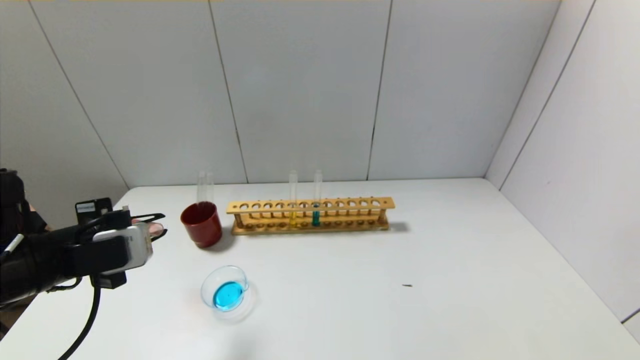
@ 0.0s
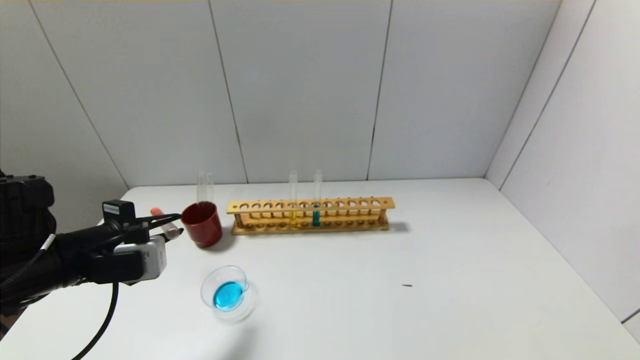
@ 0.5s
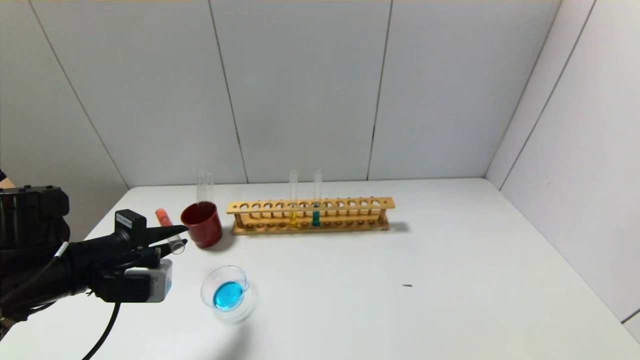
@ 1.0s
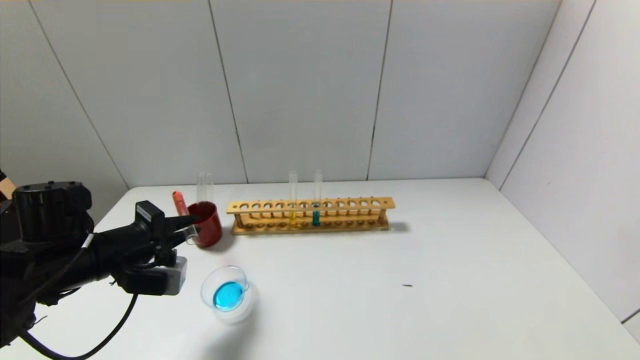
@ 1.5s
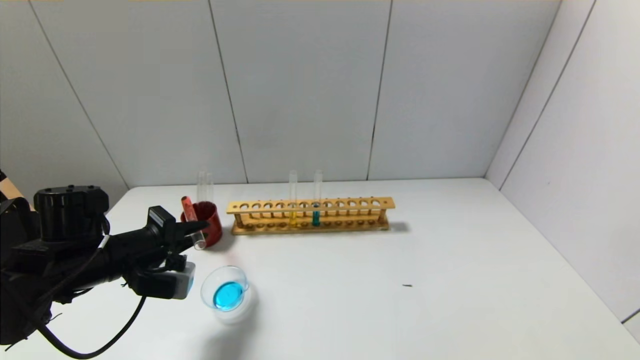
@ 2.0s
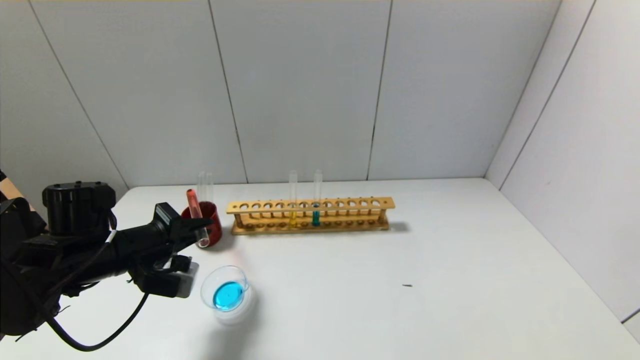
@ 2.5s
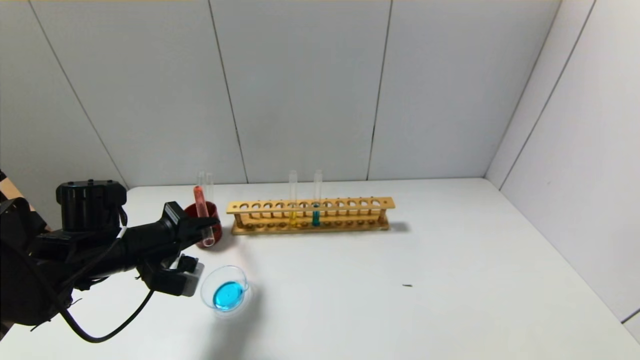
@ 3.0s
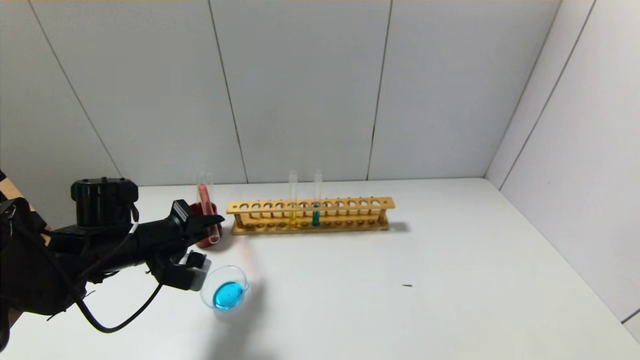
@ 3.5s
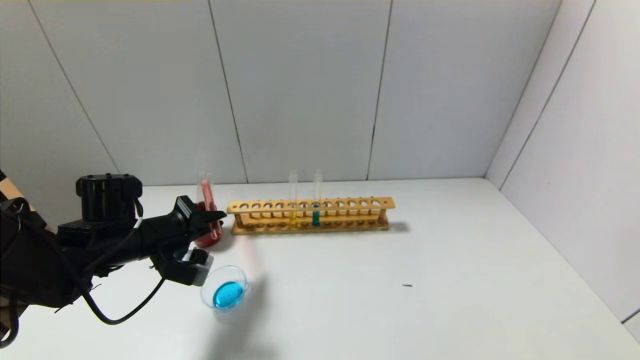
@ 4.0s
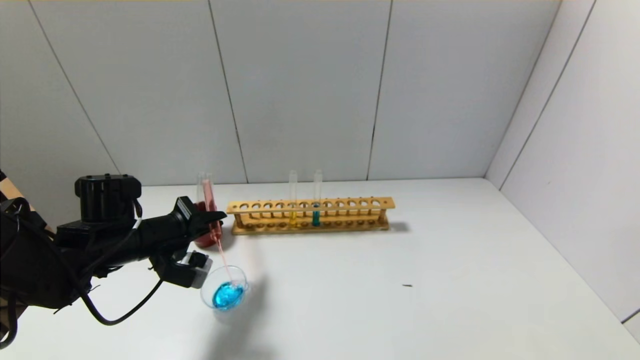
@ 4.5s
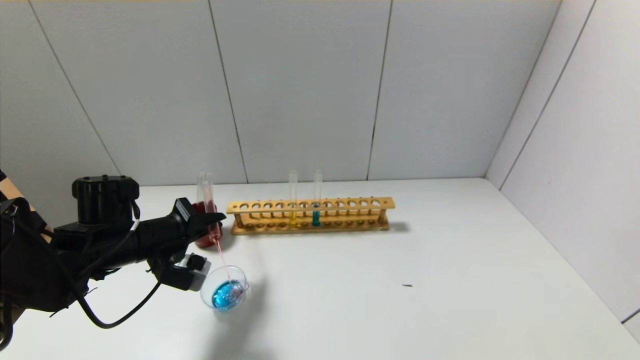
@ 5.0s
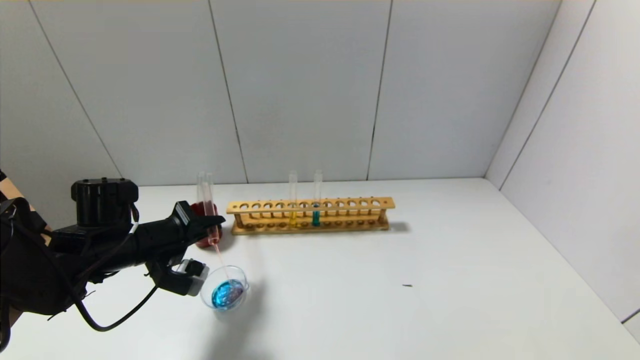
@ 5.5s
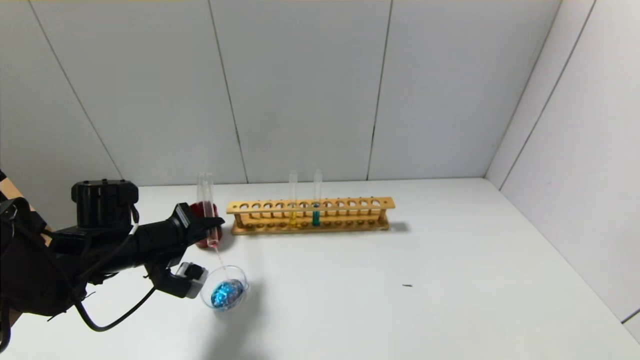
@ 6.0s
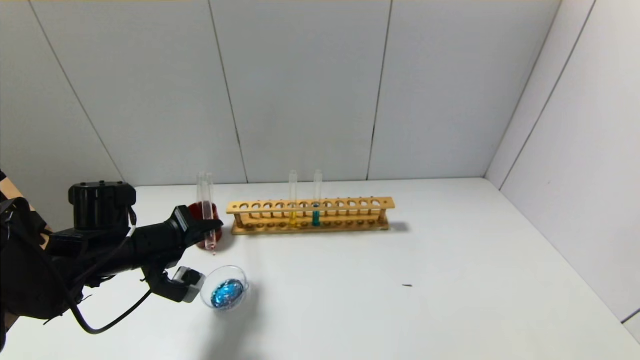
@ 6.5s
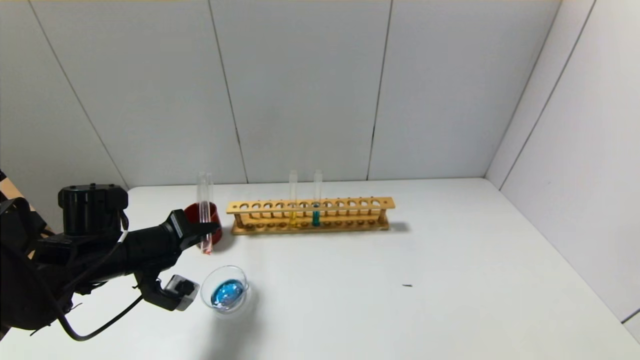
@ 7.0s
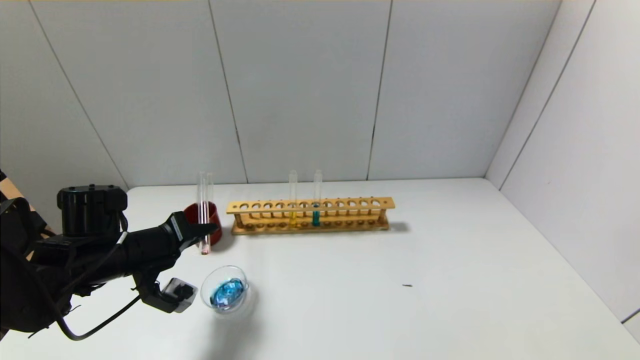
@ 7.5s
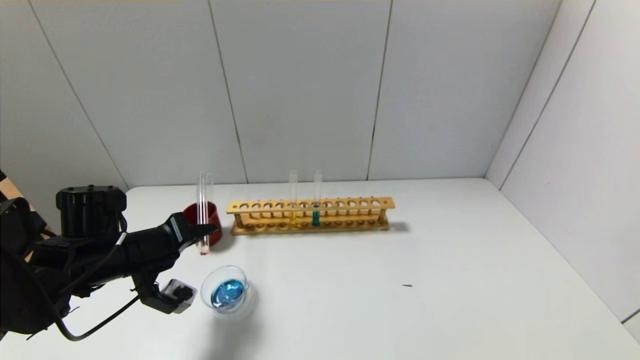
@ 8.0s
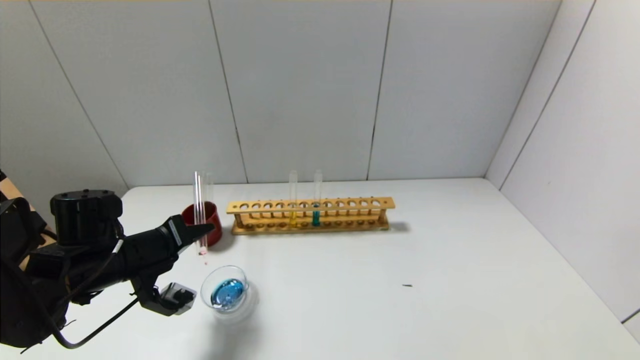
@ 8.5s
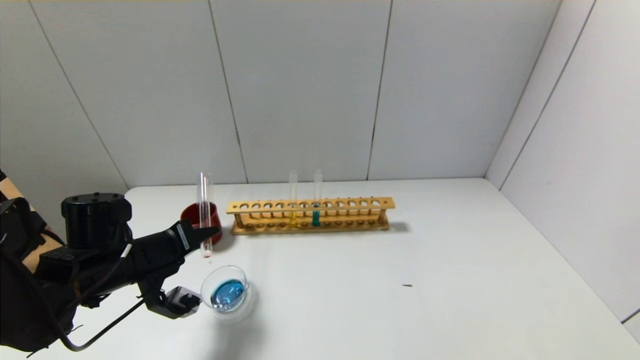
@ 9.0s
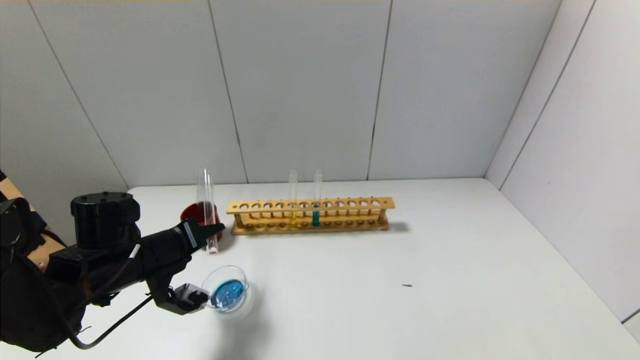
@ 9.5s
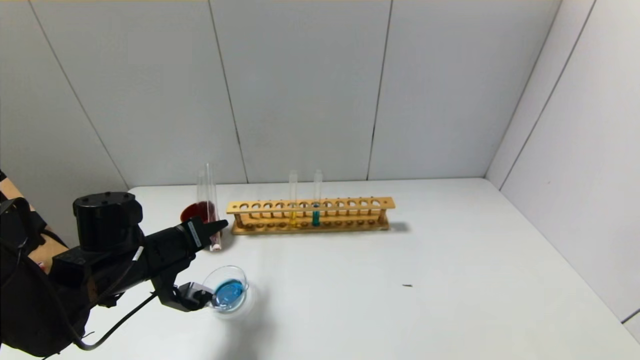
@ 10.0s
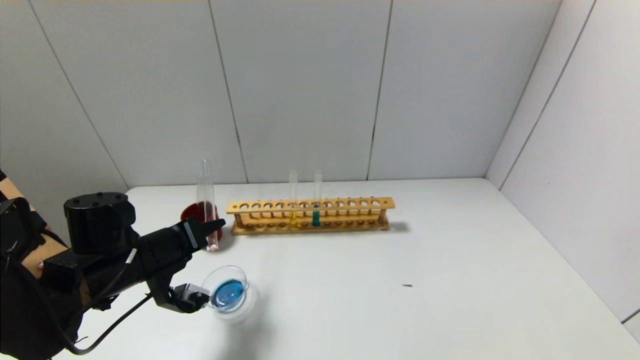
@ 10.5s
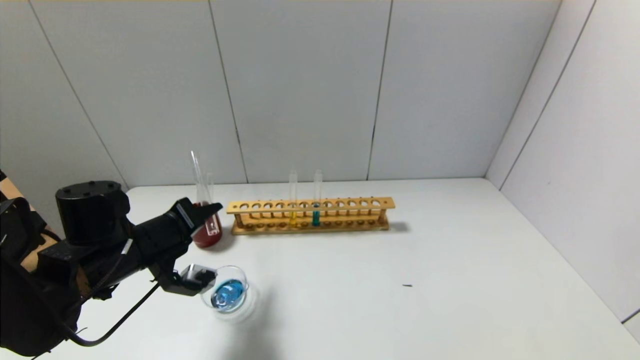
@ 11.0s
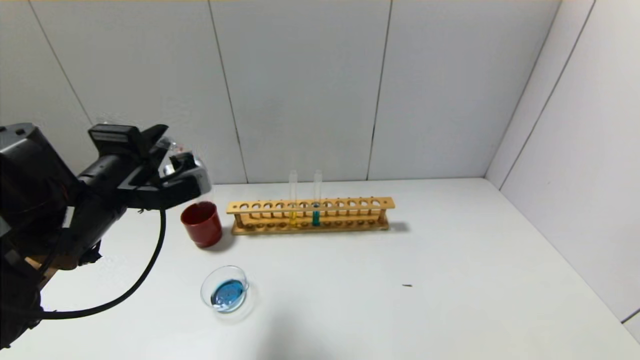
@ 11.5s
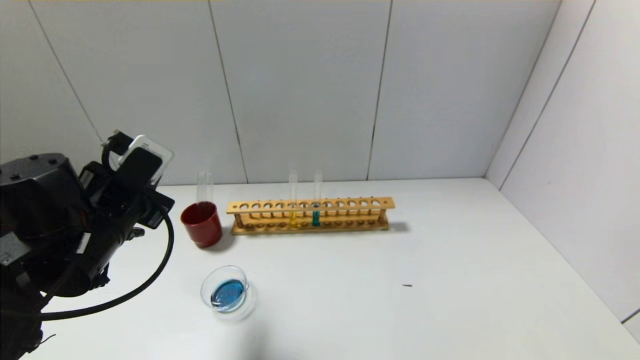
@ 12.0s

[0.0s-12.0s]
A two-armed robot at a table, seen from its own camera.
Step, 0.0s to 11.0s: Pour the red reagent into the graduated cylinder with the left gripper.
0.0s to 2.0s: The left gripper heads forward and downward, covering some 10 cm.
2.0s to 6.0s: The grippers move only a little.
6.0s to 8.0s: There are only small adjustments of the grippers.
8.0s to 10.0s: The grippers make only small movements.
10.0s to 12.0s: The left gripper moves upward, some 10 cm.

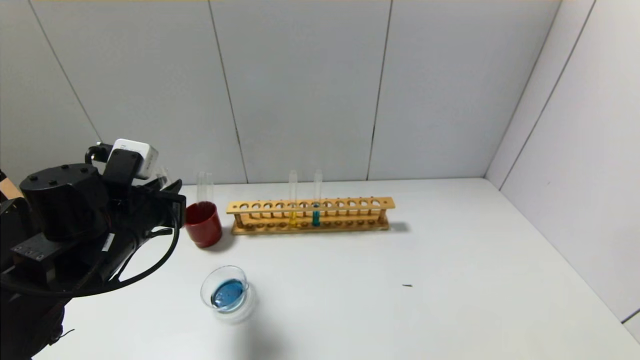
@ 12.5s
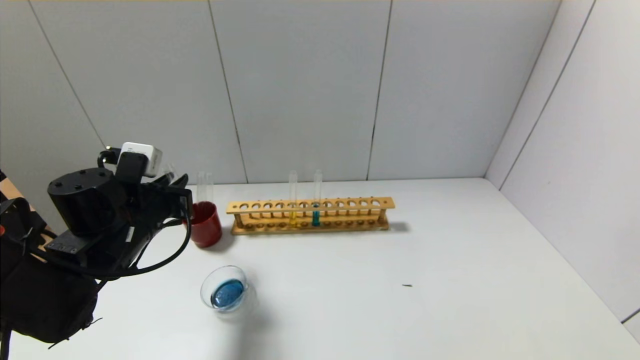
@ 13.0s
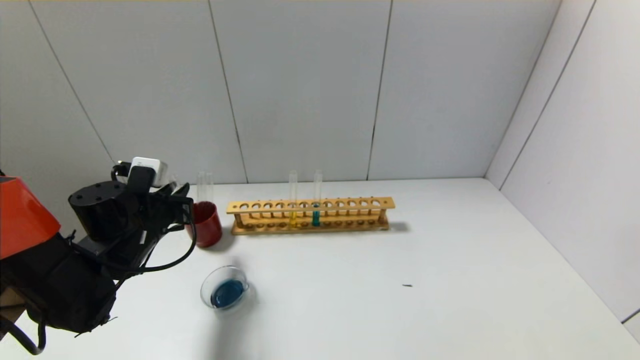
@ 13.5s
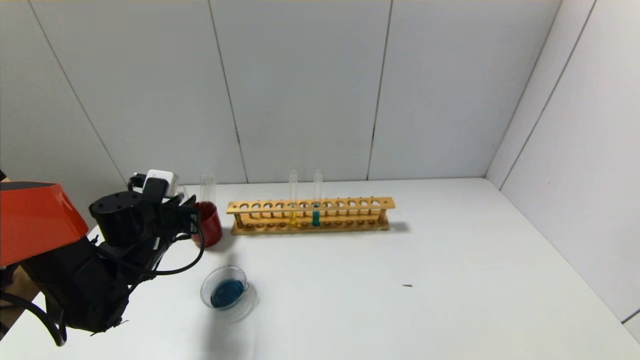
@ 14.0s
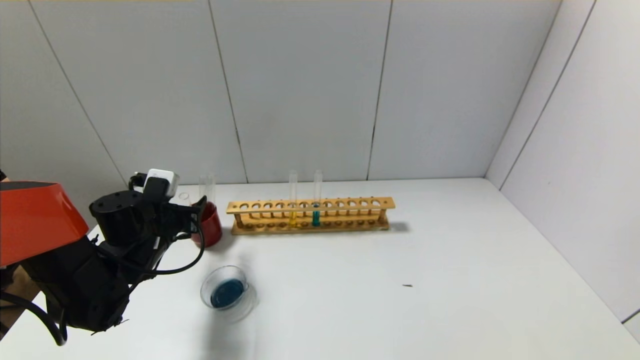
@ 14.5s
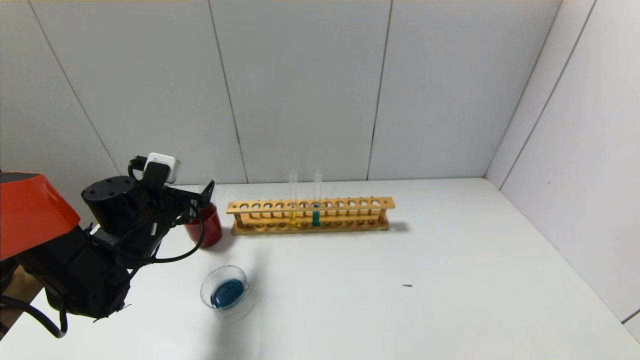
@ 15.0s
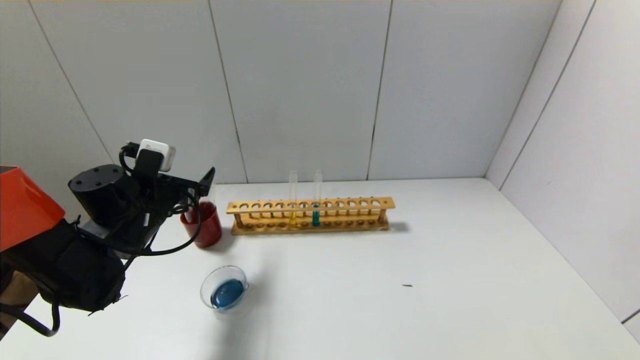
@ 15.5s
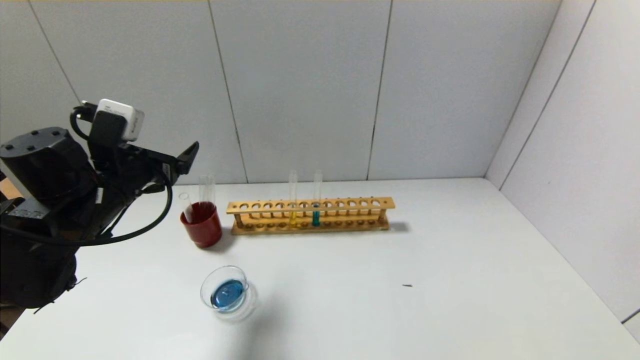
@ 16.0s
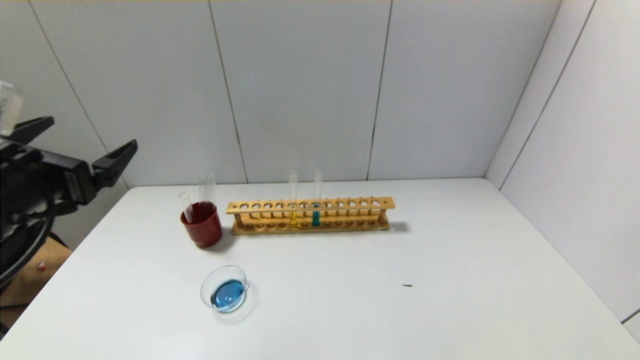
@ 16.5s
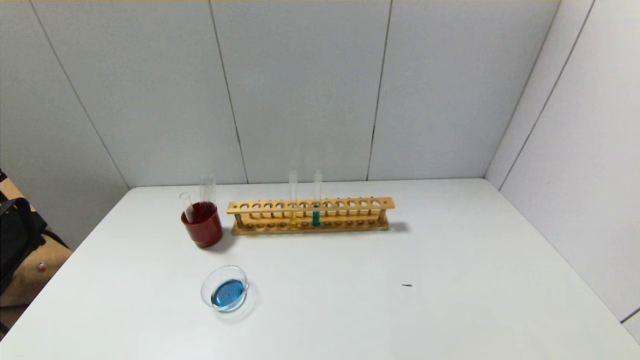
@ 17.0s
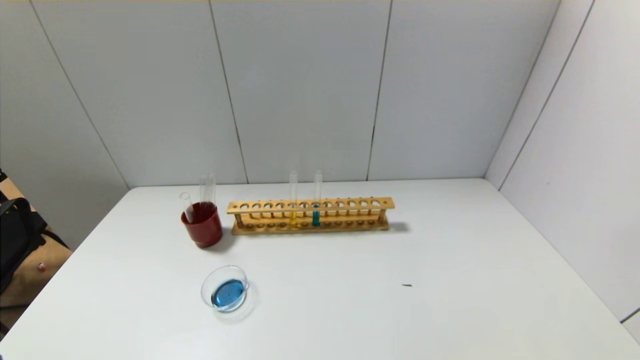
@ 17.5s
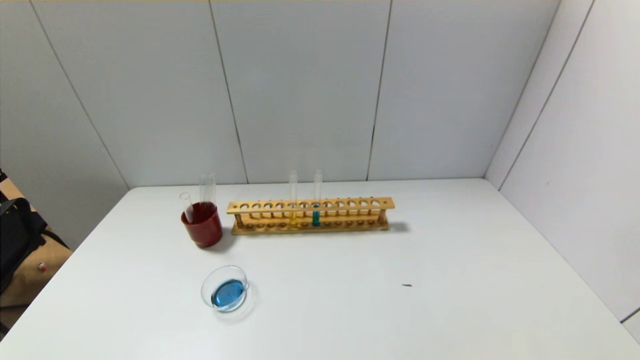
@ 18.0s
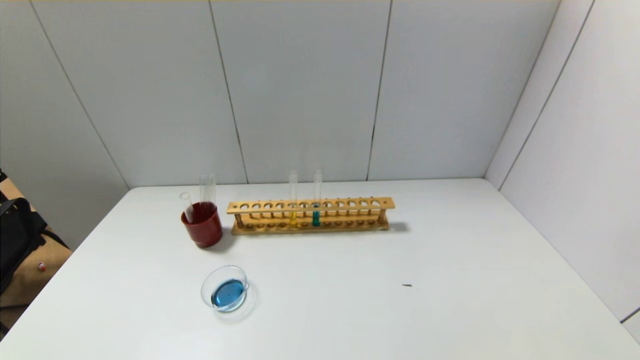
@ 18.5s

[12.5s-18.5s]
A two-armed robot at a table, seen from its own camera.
12.5s to 14.5s: The left gripper is displaced downward and forward by some 10 cm, and opens its fingers.
14.5s to 16.5s: The left gripper travels upward and backward by some 25 cm, and opens up.
16.5s to 18.5s: The left gripper moves backward and downward, roughly 25 cm.
